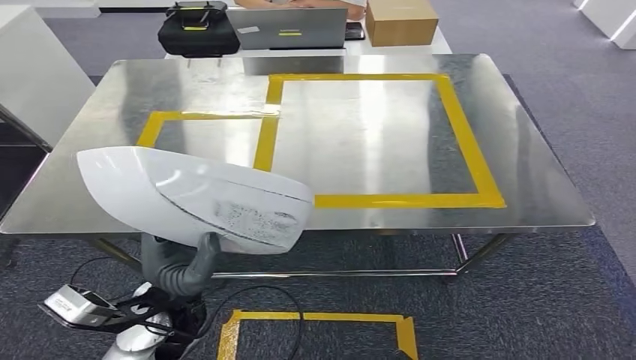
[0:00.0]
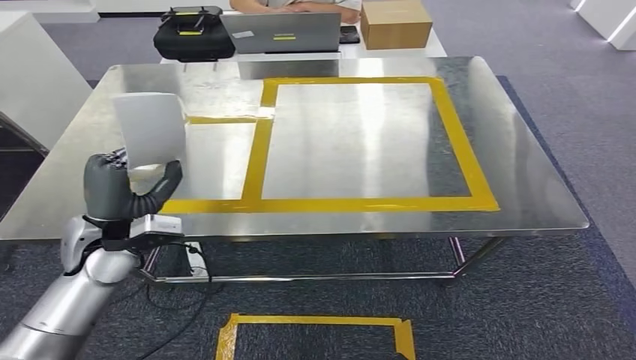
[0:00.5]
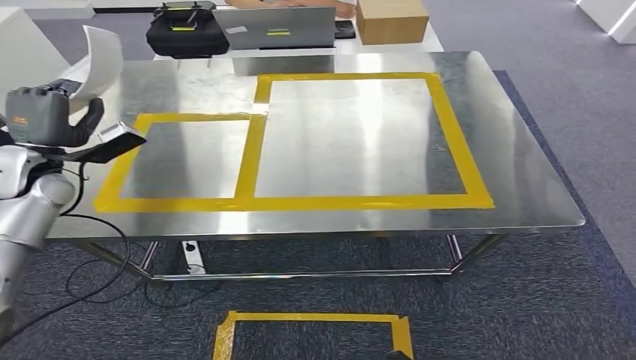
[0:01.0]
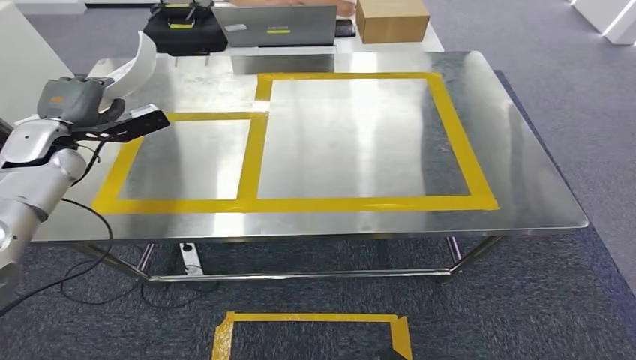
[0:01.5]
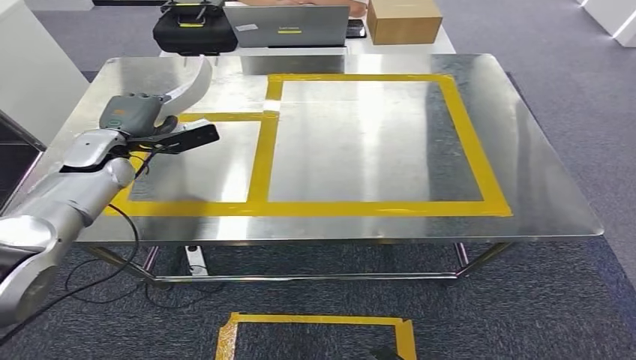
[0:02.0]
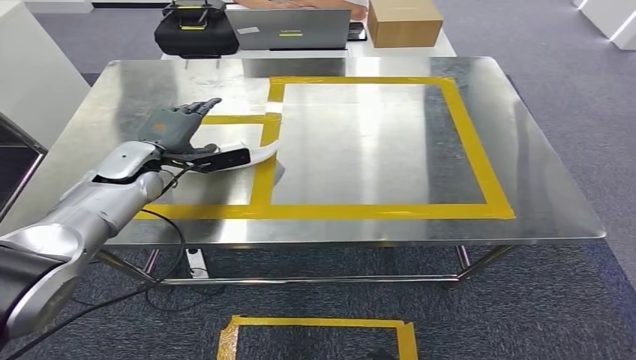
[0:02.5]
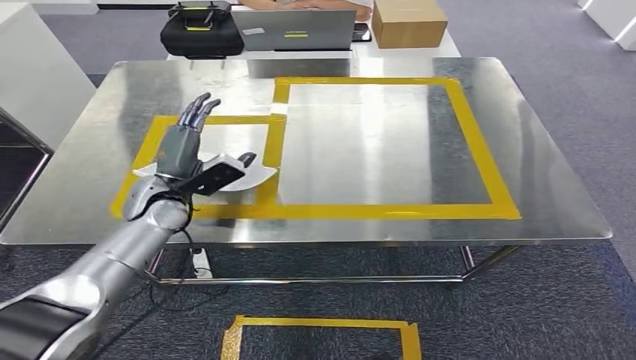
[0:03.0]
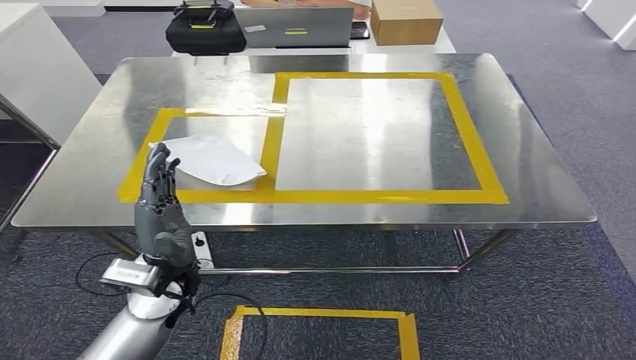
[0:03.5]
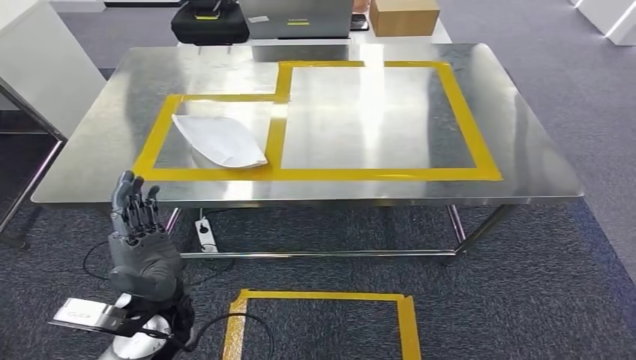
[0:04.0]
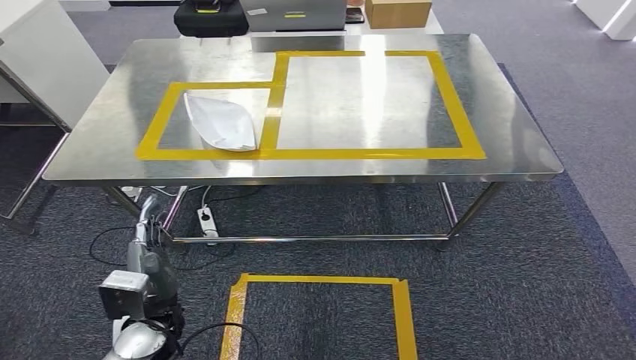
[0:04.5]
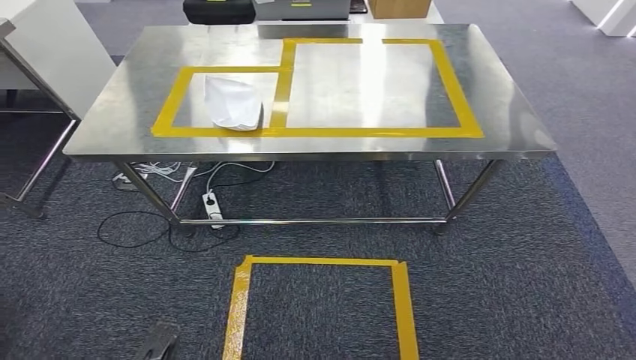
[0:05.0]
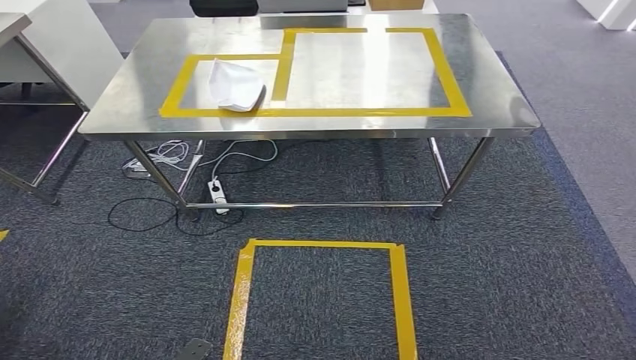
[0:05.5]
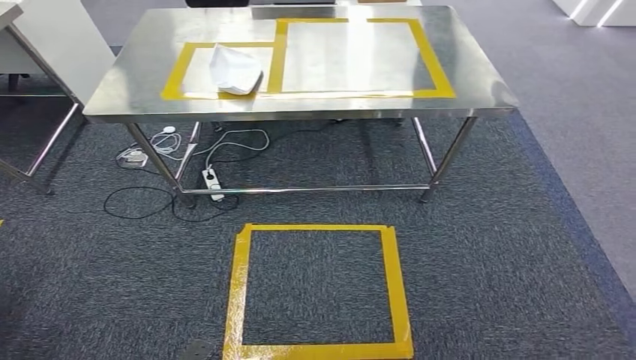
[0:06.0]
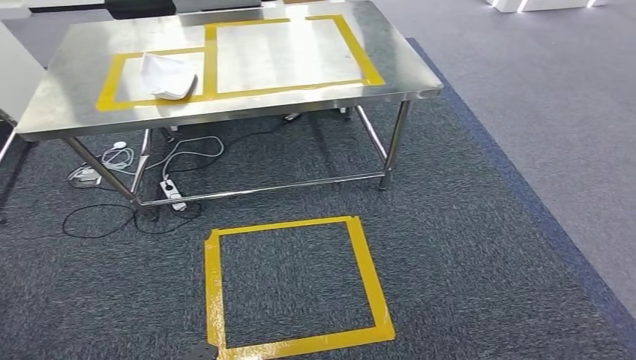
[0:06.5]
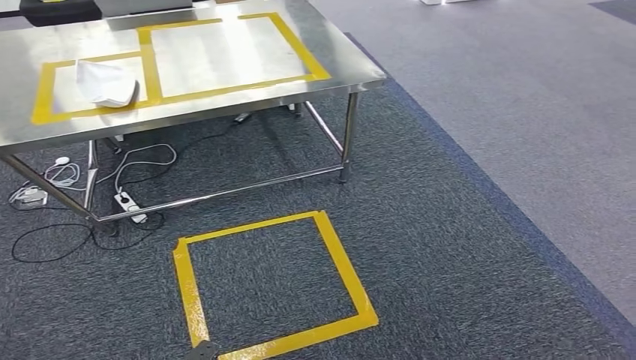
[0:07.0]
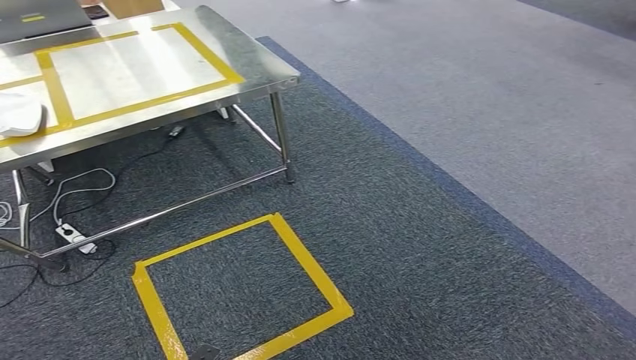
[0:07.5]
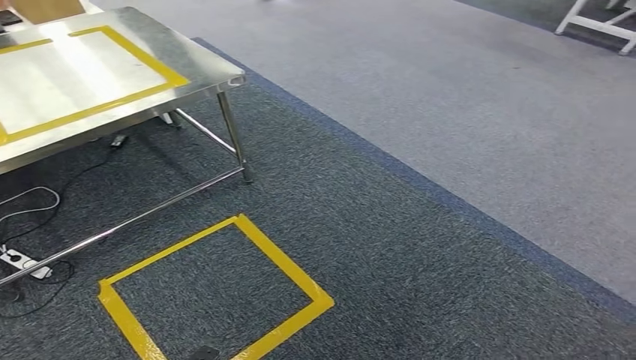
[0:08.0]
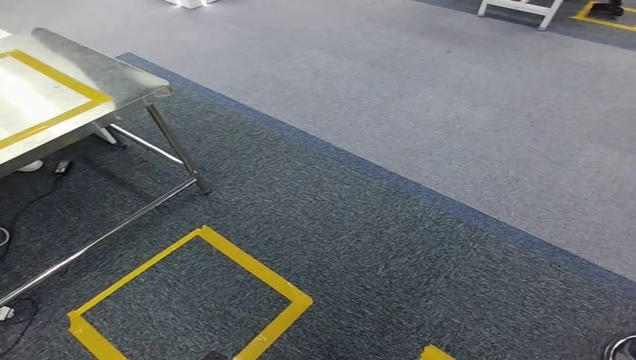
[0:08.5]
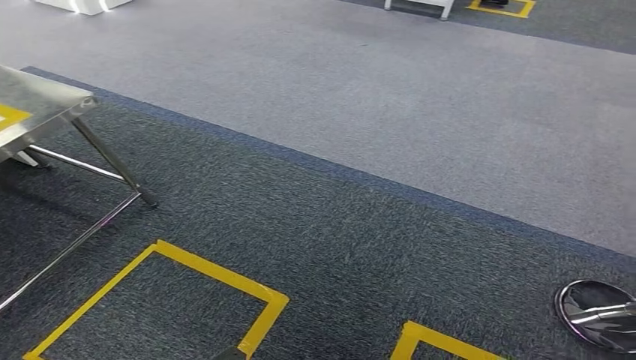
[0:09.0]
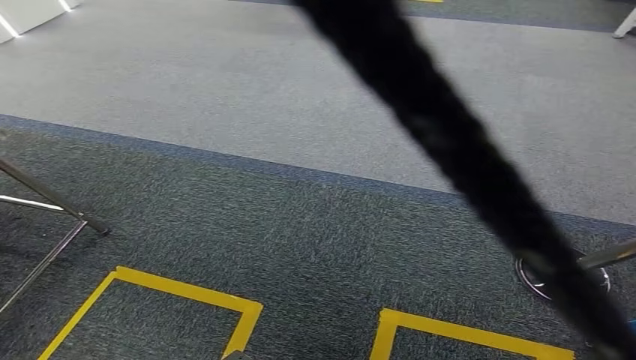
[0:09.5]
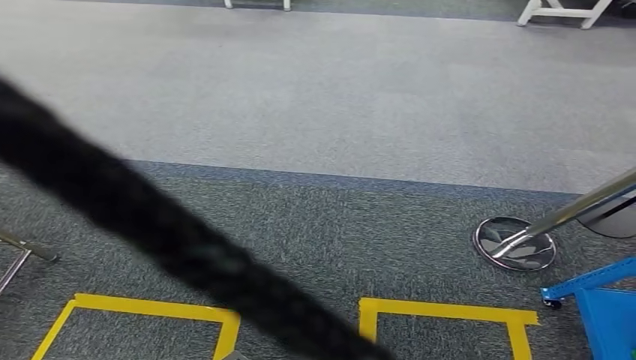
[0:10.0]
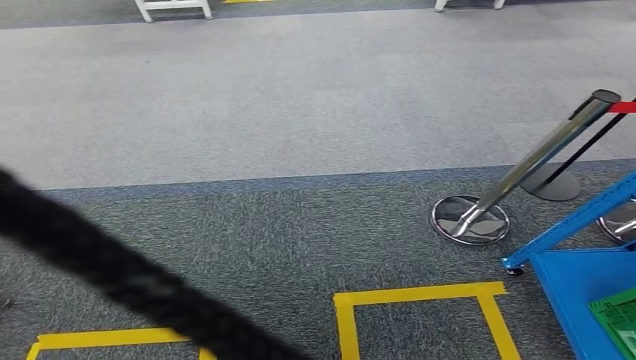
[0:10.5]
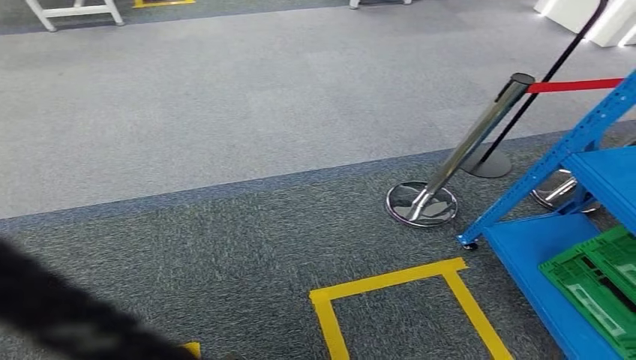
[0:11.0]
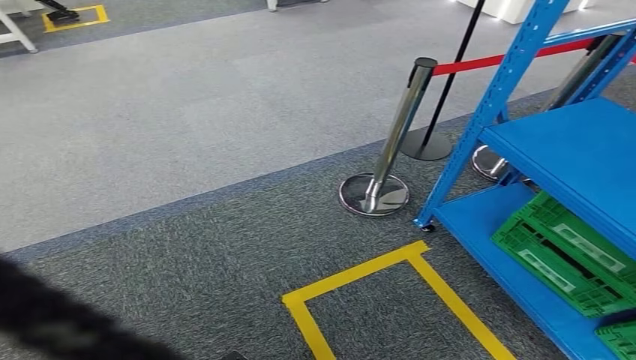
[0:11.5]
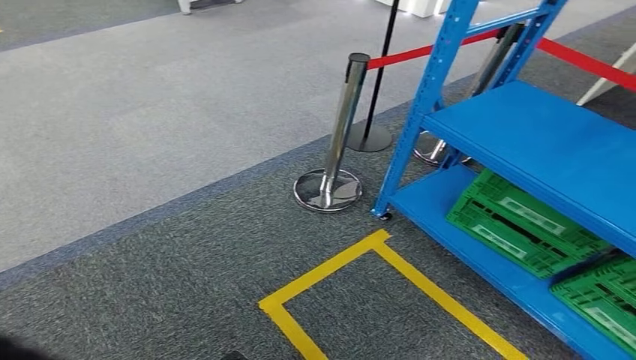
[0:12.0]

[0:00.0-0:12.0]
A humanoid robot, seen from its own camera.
Step, 0:00.0 to 0:04.5: Insert the small component into the corresponding slot on the workbench.

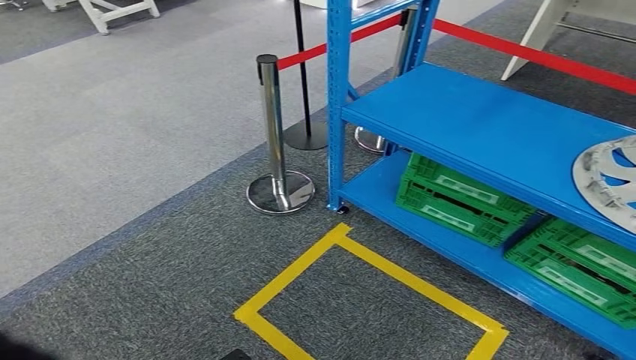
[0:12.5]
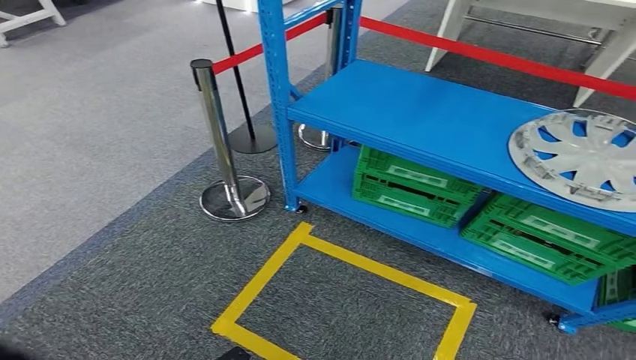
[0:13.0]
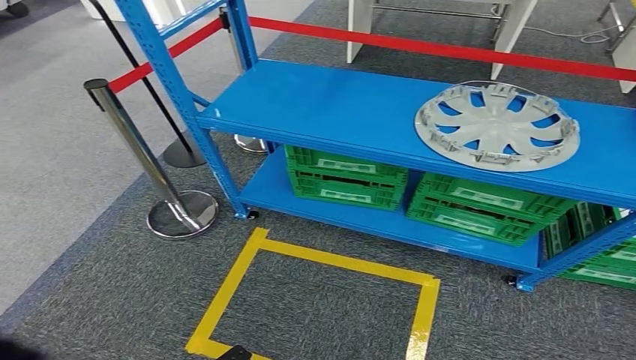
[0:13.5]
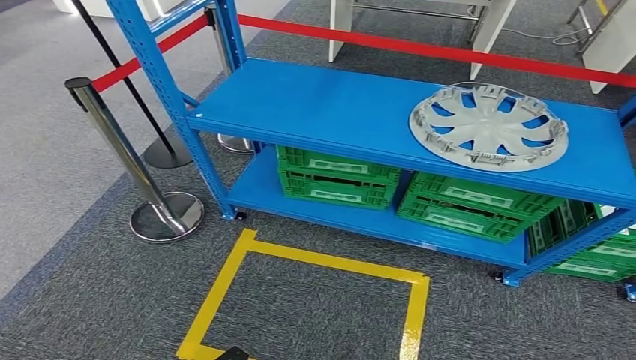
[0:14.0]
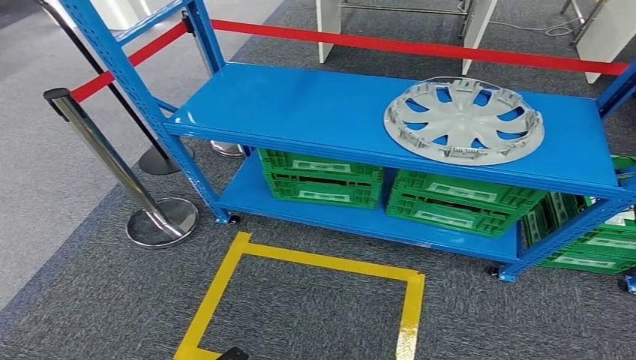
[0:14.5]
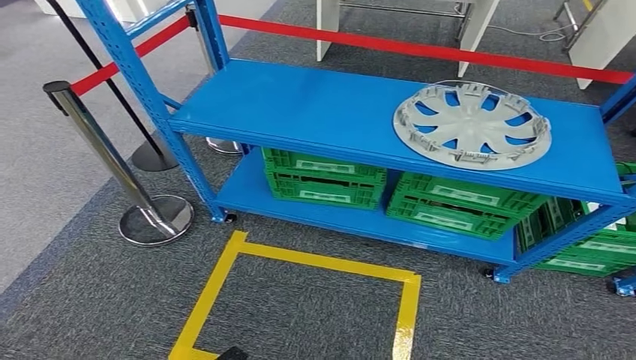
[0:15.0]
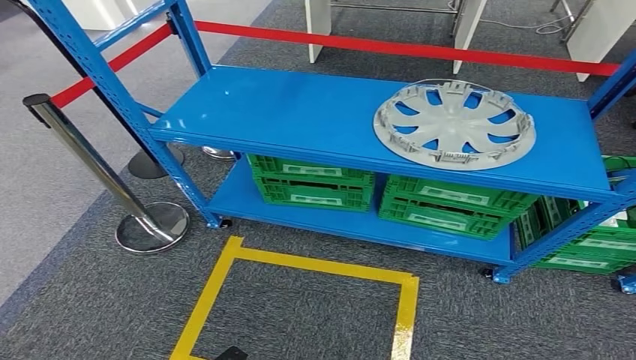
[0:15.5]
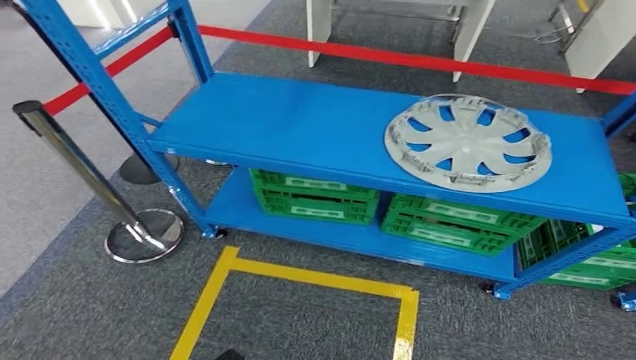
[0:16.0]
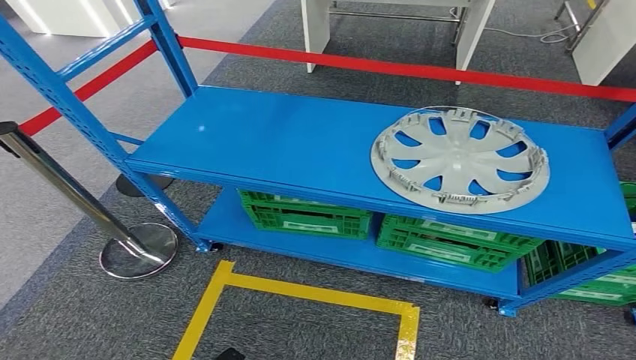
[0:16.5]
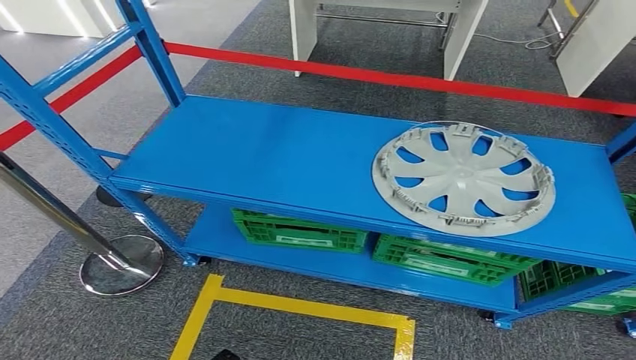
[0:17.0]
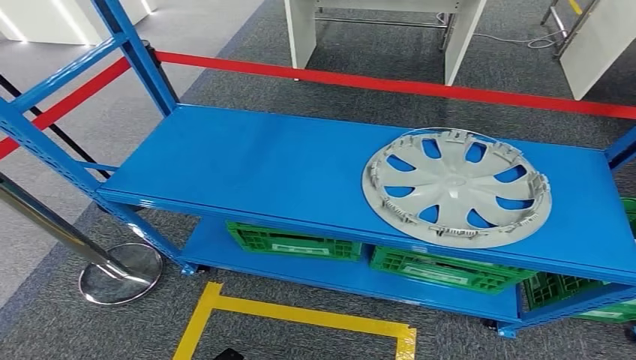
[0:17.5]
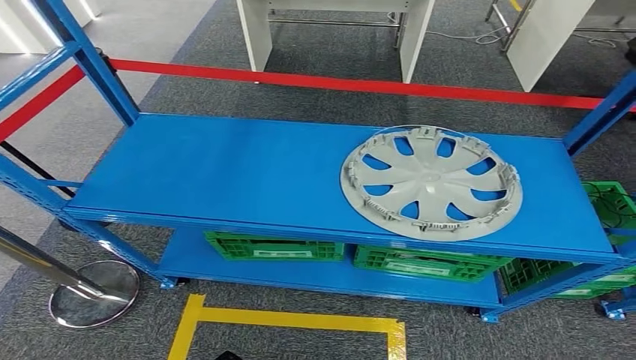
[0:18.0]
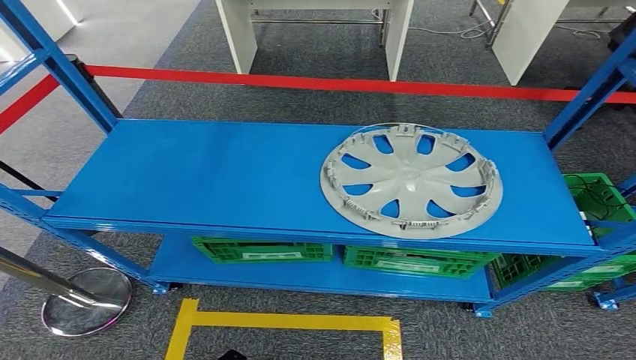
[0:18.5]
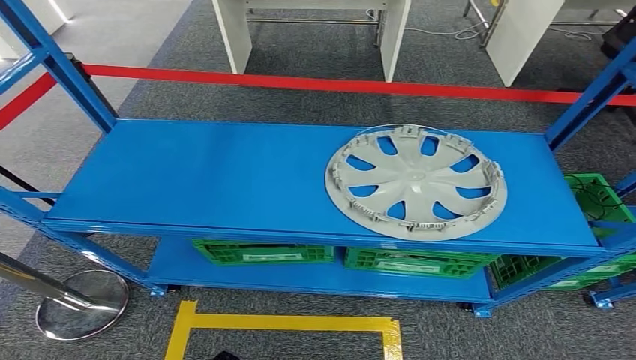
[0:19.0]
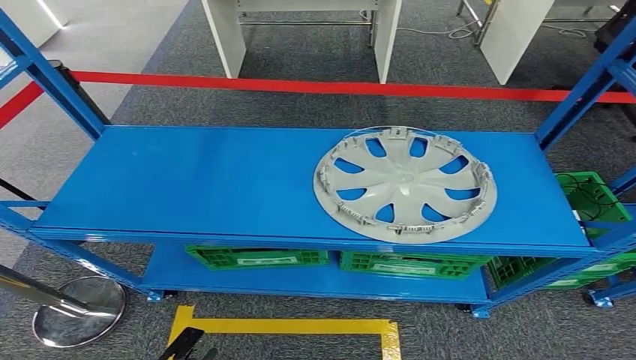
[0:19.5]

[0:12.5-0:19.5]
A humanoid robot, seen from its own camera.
Step, 0:12.5 to 0:19.5: Move to the initial position of the workbench.
